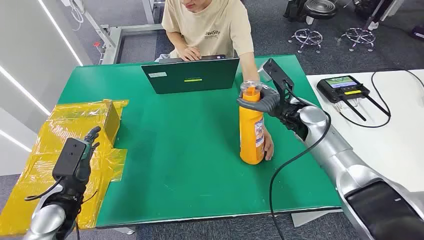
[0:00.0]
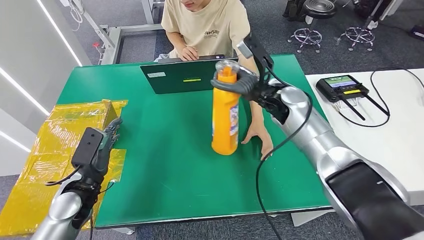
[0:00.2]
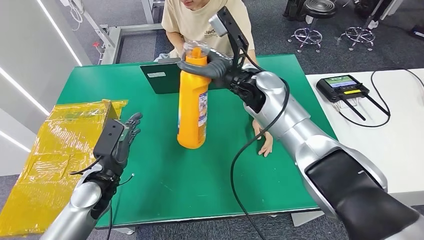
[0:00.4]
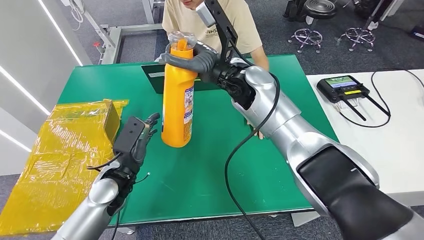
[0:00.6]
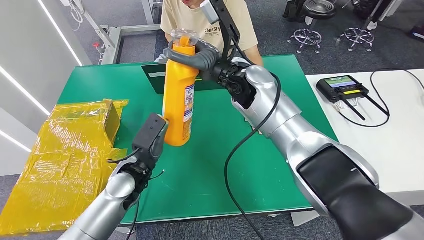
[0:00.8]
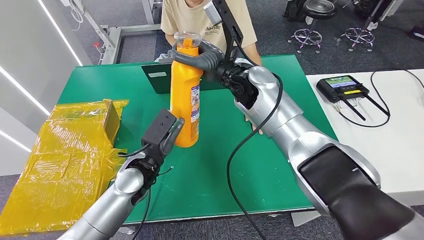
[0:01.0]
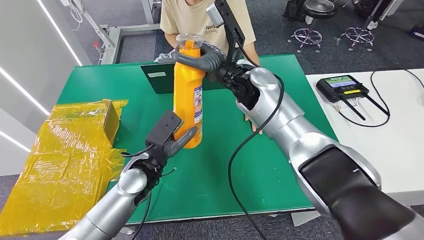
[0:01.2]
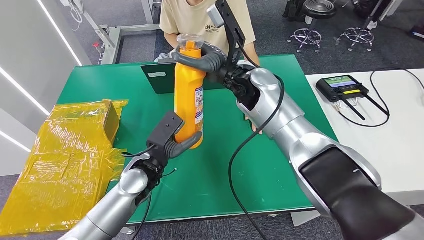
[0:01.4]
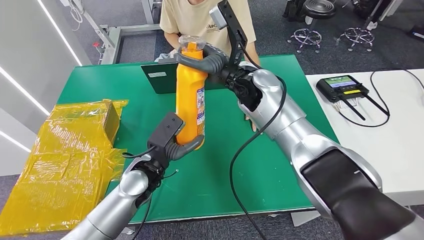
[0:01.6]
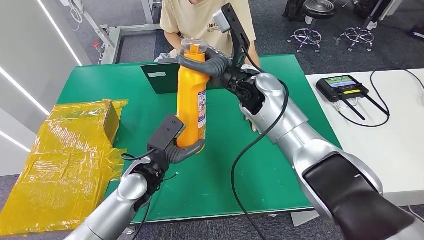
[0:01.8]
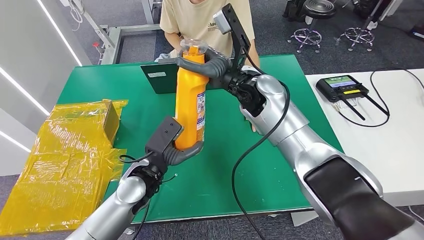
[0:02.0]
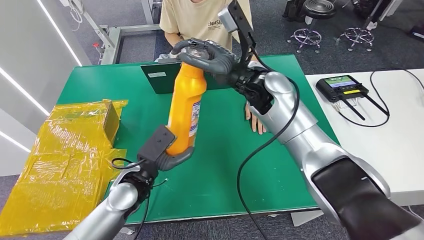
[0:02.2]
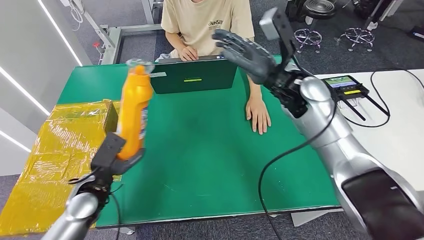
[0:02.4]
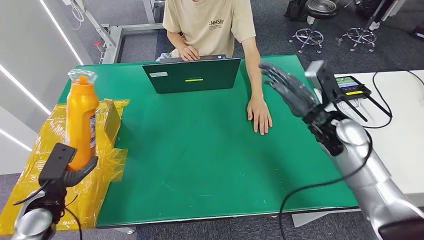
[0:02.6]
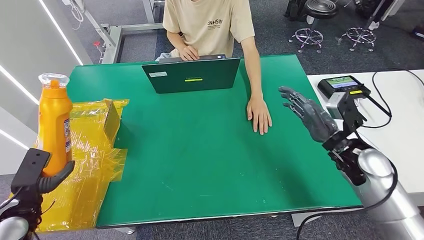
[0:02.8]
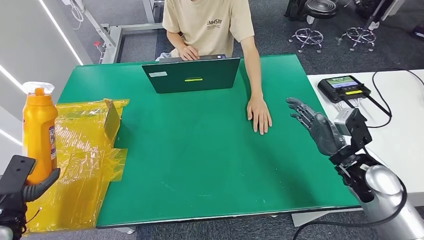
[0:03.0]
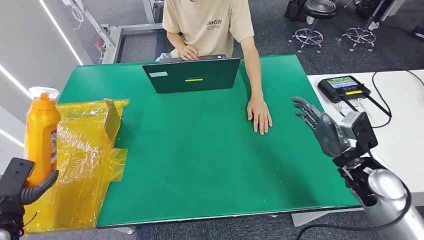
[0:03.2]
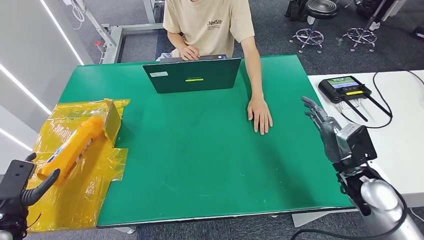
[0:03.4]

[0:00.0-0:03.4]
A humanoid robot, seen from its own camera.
Step, 0:00.0 to 0:00.8: Pick up the bottle from the table.
Step, 0:01.0 to 0:03.4: Turn the bottle to the front side.
